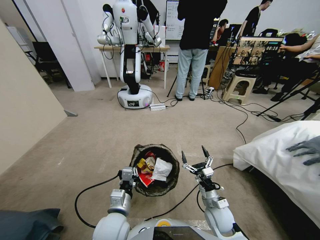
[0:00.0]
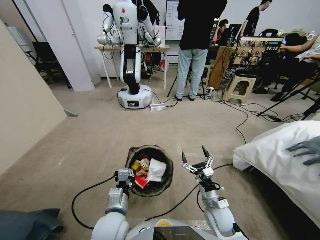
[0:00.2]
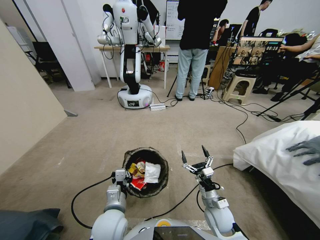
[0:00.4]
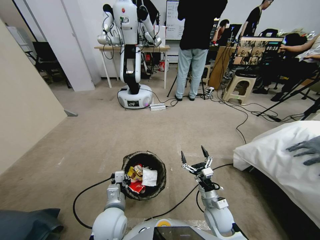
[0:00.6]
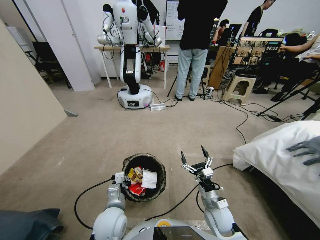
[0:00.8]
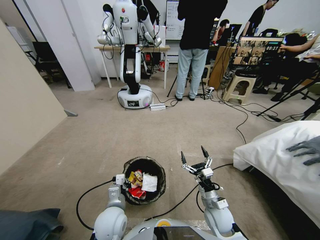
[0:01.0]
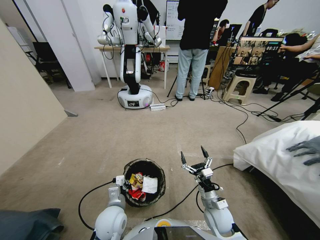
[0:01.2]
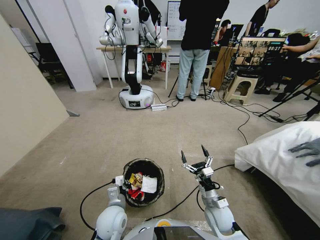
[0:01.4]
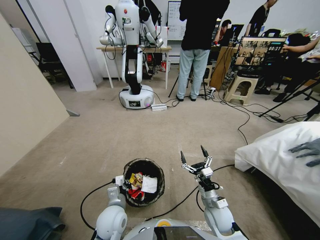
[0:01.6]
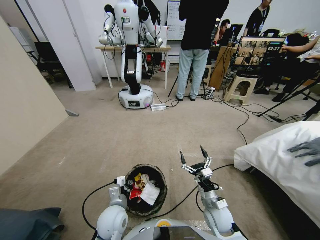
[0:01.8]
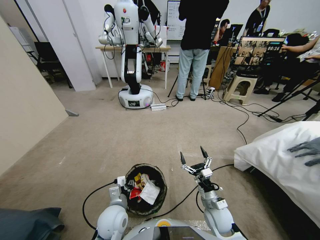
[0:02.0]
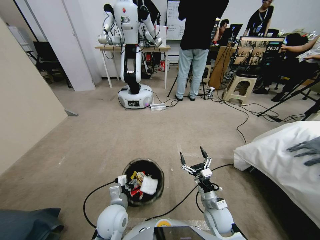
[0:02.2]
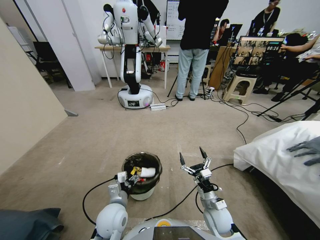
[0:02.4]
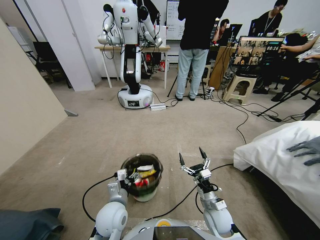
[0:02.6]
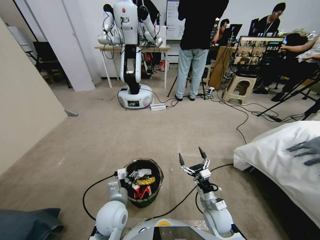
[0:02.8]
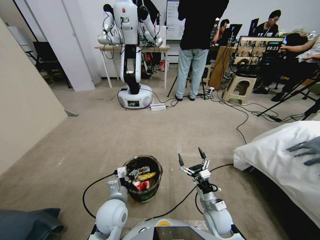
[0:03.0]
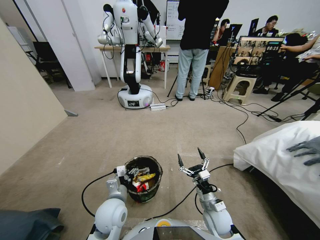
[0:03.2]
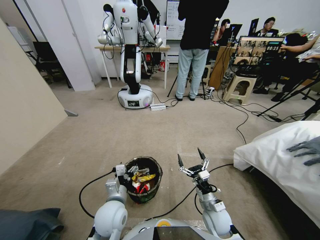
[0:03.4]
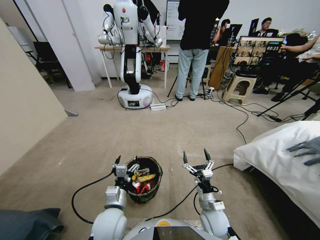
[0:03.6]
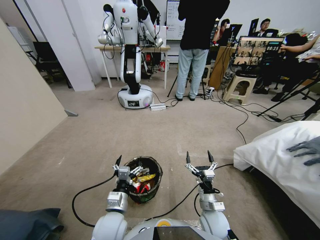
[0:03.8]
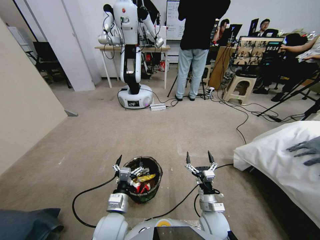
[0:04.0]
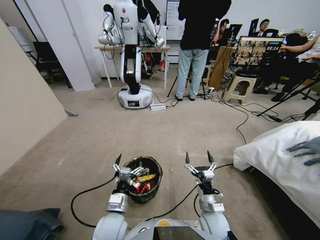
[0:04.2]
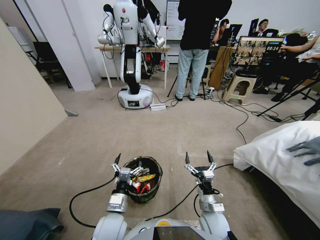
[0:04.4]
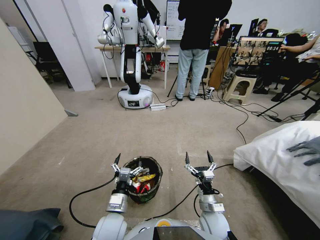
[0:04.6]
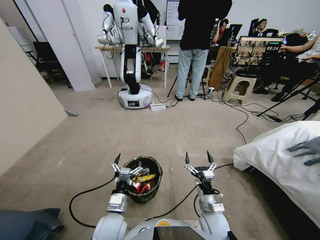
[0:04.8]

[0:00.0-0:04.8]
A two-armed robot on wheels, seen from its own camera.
Task of the whole recording: Pick up the trash bin, then pick up the garbage from the floor and place it into the trash bin.
0:00.0 to 0:01.6: The left gripper goes some 5 cm downward.
0:01.6 to 0:03.2: The left gripper opens up.

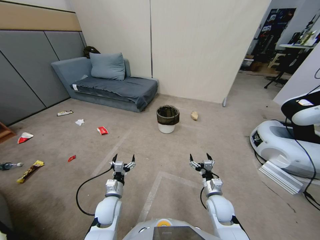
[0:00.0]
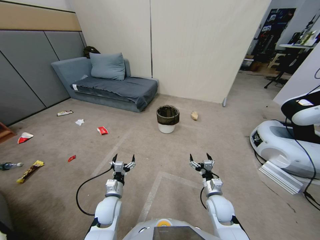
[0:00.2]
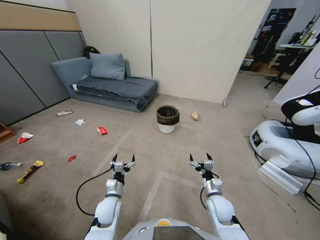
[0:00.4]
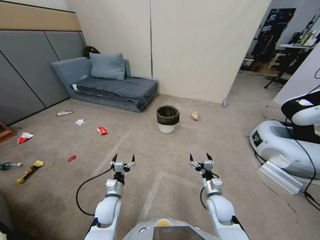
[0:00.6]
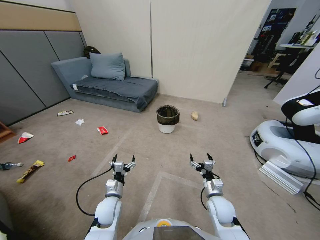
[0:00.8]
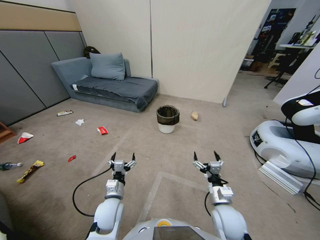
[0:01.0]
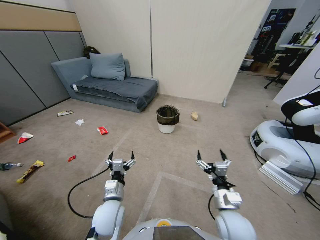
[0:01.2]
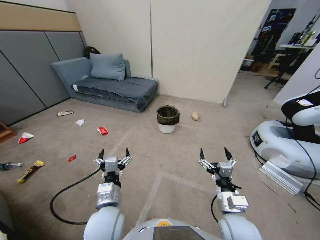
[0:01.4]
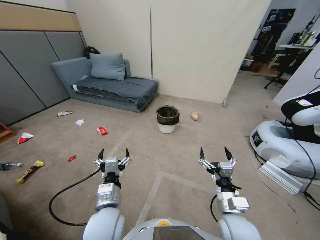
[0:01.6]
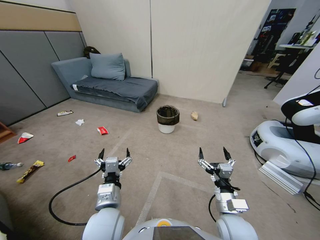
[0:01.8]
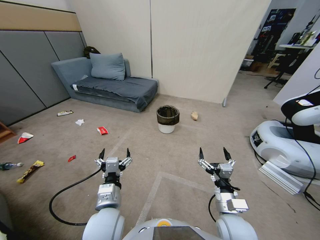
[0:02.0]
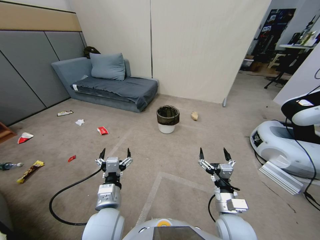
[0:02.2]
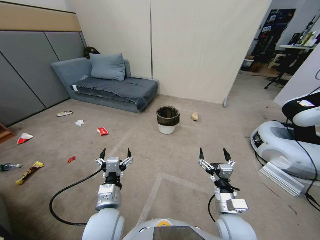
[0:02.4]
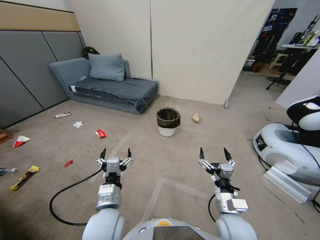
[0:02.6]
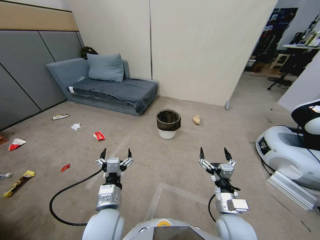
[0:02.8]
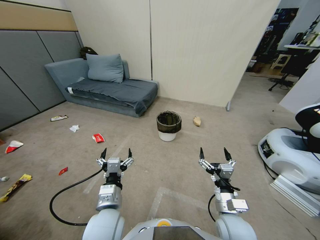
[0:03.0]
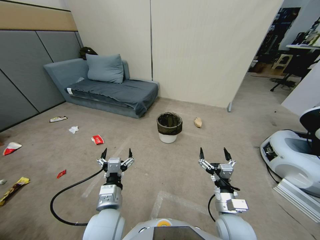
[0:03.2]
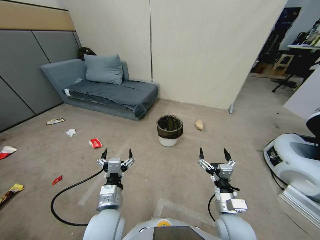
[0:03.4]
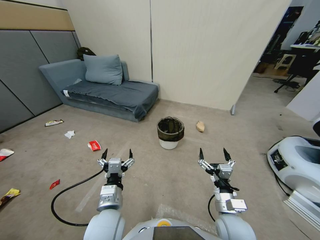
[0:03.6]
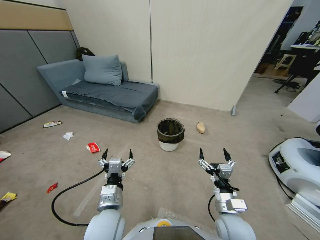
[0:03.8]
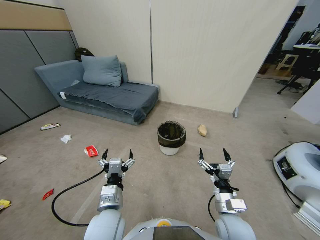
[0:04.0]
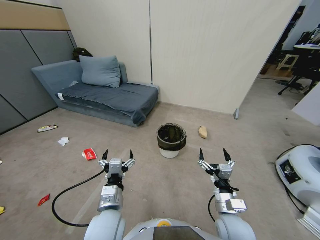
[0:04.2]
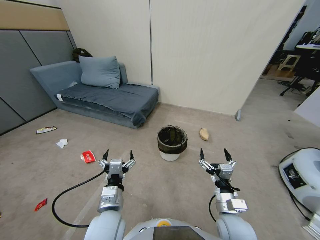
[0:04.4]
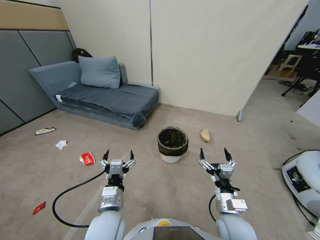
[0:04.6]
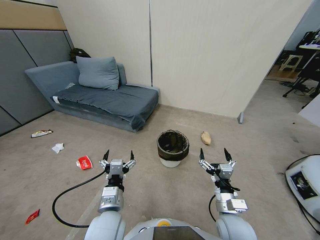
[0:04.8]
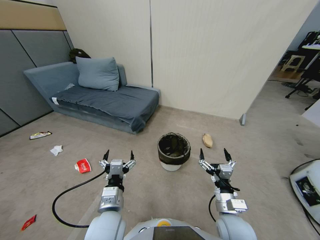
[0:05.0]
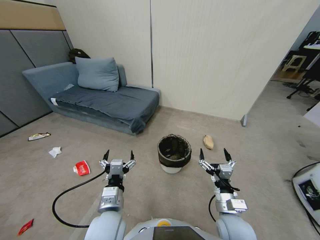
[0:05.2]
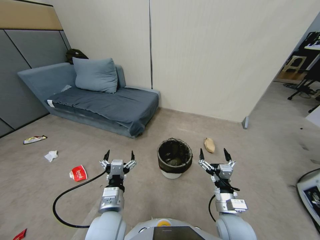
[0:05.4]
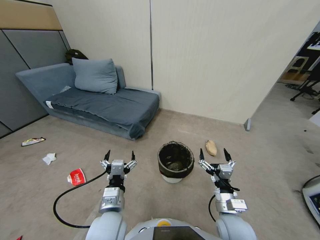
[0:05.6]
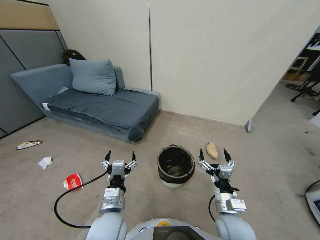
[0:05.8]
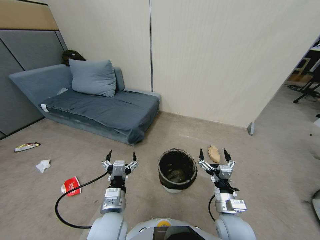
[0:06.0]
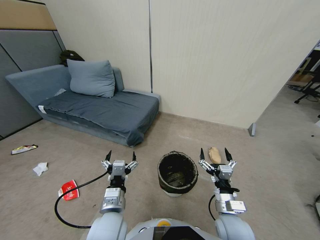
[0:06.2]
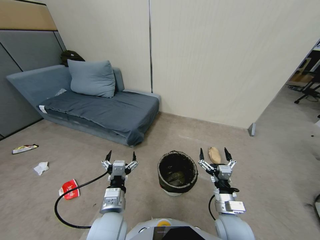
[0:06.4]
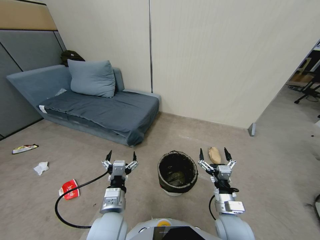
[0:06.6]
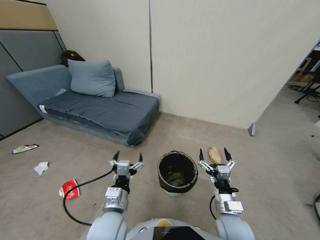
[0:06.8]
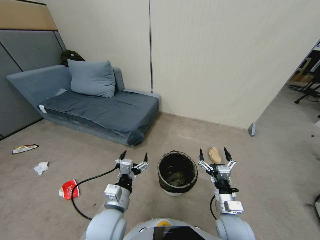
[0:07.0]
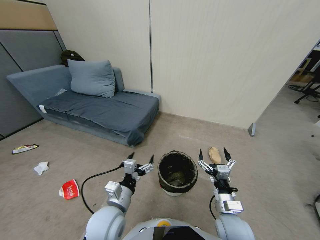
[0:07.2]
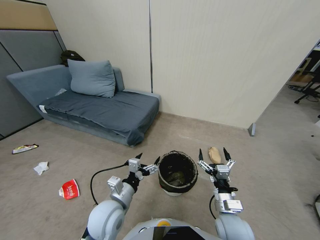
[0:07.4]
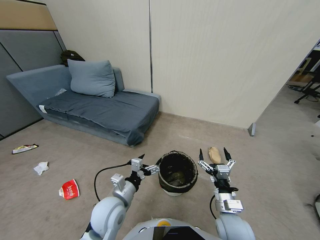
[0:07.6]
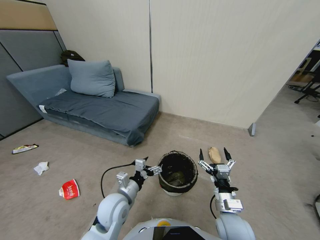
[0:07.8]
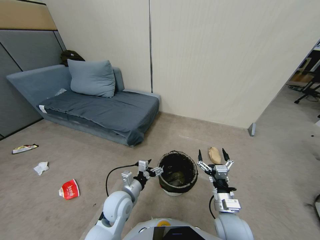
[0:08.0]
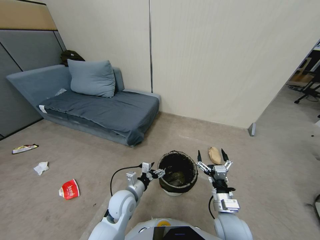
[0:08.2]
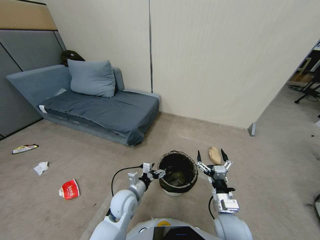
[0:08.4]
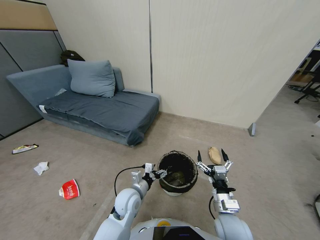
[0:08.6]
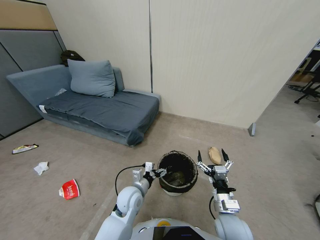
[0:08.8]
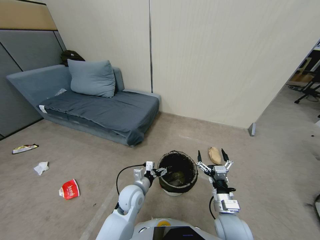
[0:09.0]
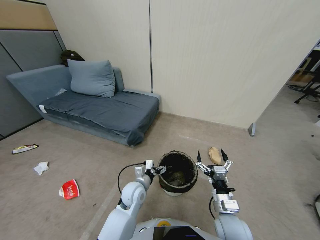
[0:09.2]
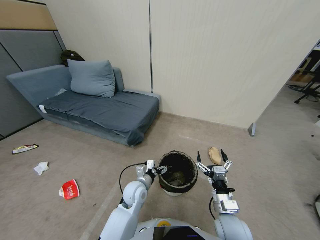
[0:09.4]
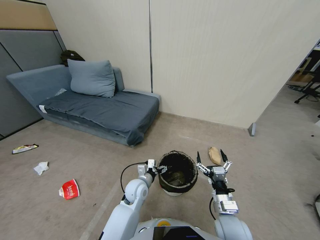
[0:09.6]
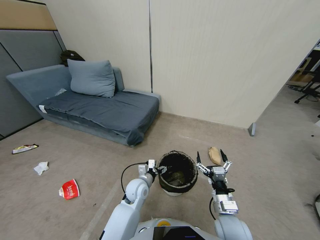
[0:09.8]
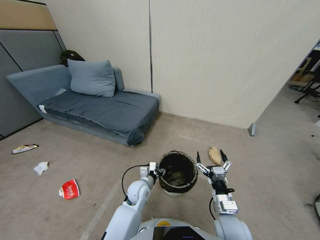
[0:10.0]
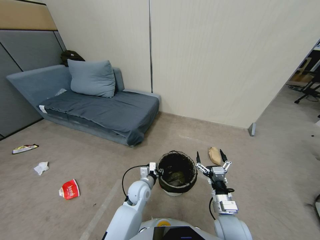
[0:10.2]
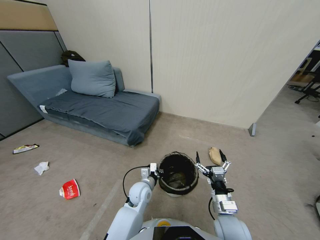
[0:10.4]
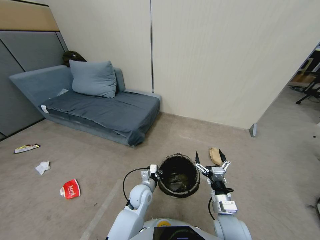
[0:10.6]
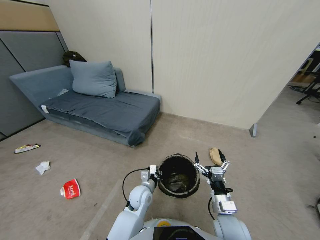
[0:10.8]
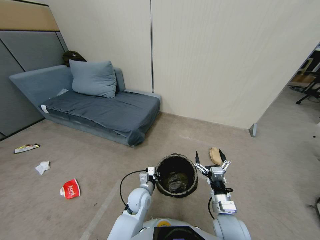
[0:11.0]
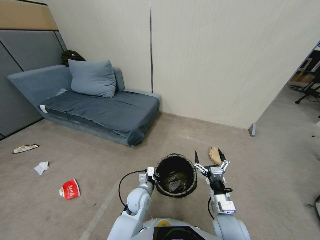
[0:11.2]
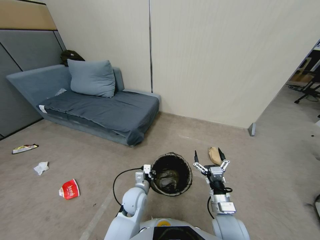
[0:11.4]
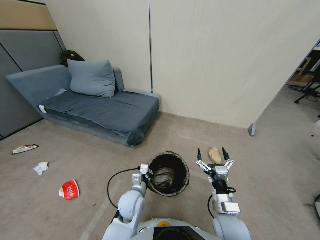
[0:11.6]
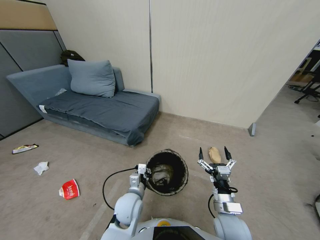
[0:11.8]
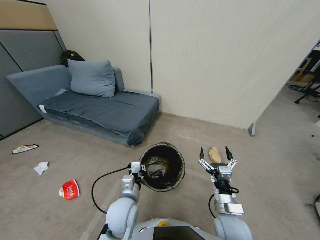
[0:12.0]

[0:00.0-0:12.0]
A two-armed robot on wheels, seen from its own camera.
Task of the whole recording: Pick up the trash bin, then pick up the garbage from the floor and place it into the trash bin.
0:06.0 to 0:07.6: The left gripper travels forward by some 5 cm.
0:07.6 to 0:09.0: The left gripper shifts about 10 cm forward, downward and to the right.
0:09.0 to 0:10.4: The left gripper changes place by approximately 5 cm, and closes.
0:10.4 to 0:12.0: The left gripper travels upward and backward by some 15 cm.

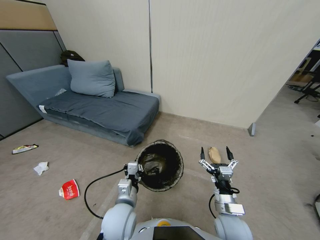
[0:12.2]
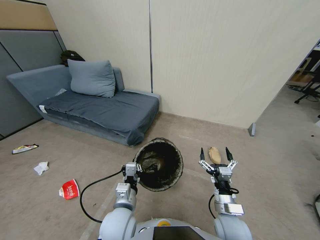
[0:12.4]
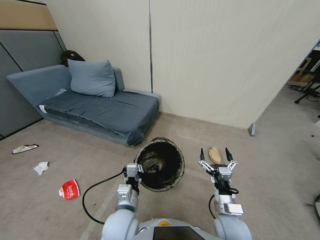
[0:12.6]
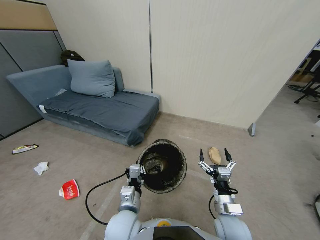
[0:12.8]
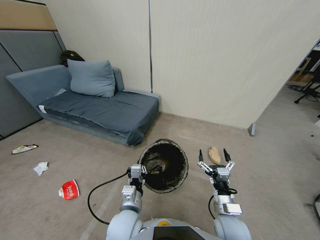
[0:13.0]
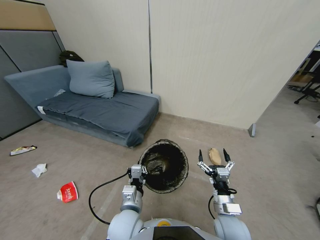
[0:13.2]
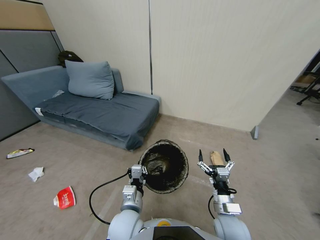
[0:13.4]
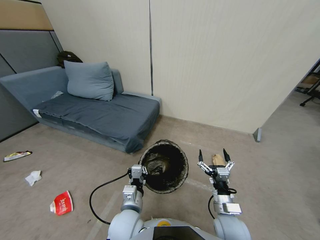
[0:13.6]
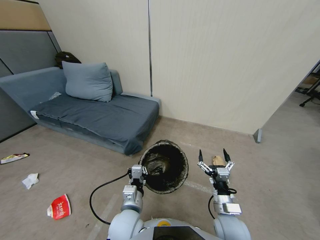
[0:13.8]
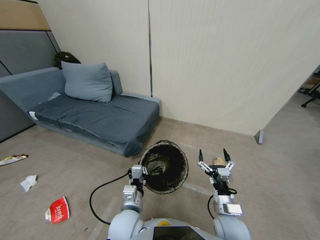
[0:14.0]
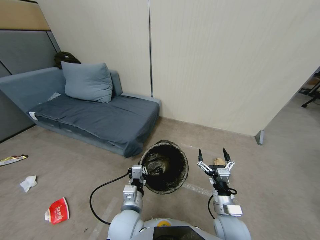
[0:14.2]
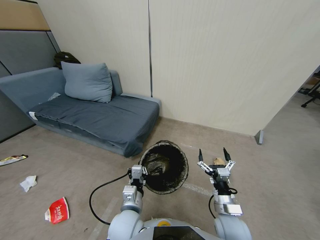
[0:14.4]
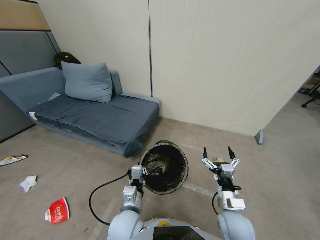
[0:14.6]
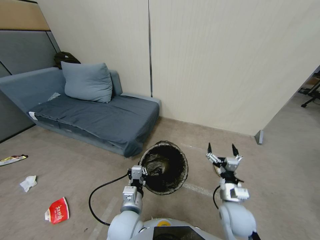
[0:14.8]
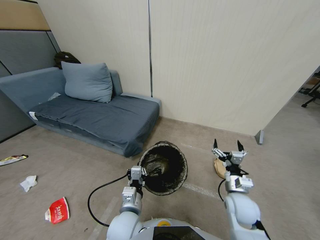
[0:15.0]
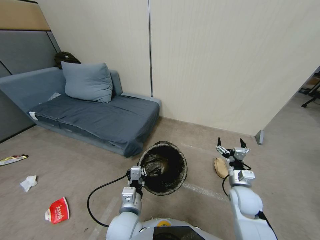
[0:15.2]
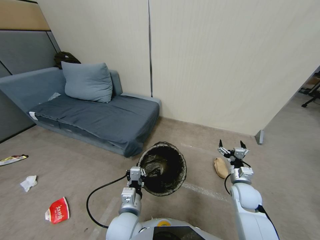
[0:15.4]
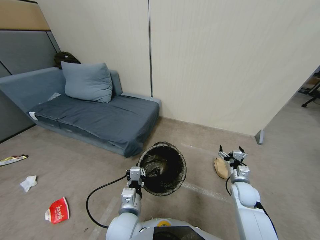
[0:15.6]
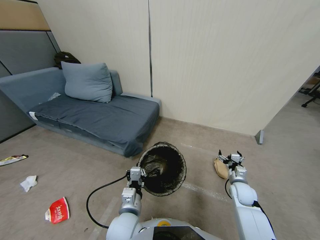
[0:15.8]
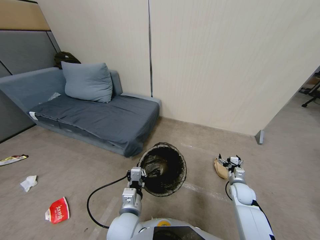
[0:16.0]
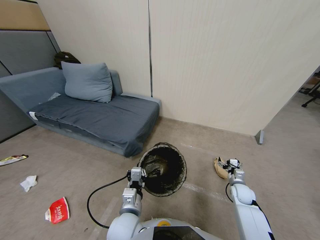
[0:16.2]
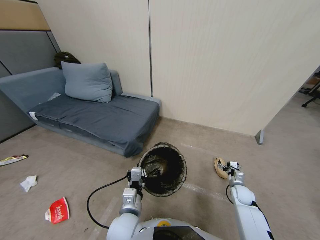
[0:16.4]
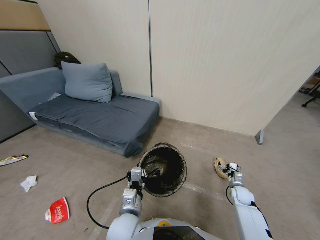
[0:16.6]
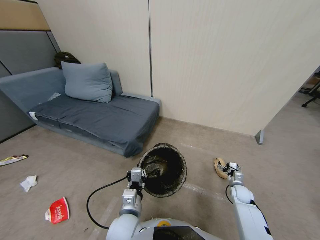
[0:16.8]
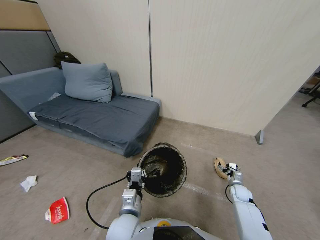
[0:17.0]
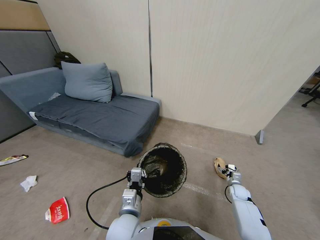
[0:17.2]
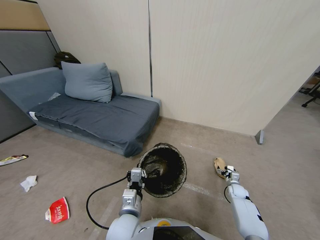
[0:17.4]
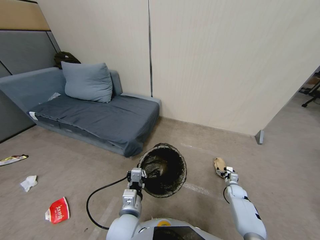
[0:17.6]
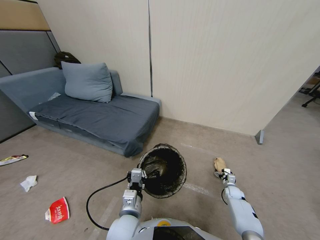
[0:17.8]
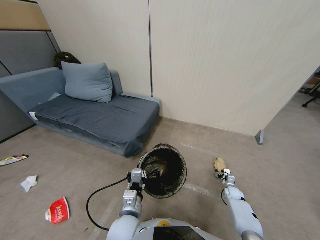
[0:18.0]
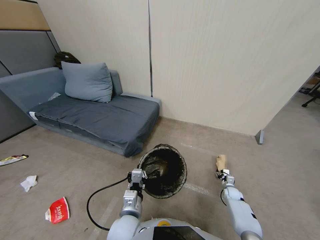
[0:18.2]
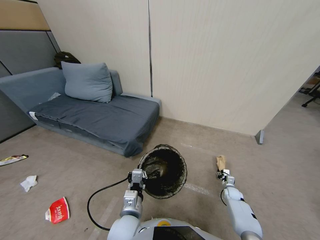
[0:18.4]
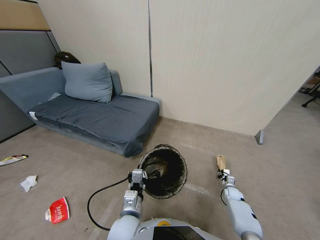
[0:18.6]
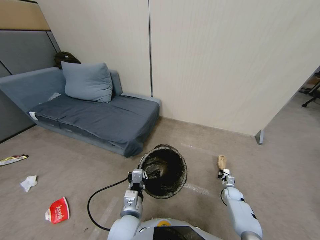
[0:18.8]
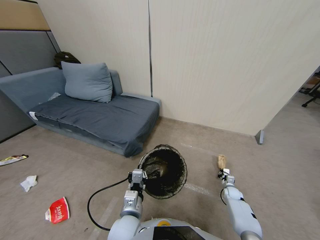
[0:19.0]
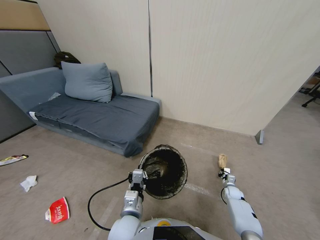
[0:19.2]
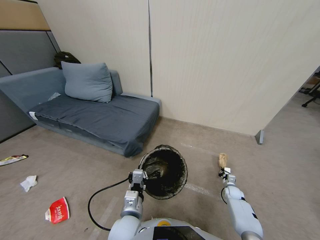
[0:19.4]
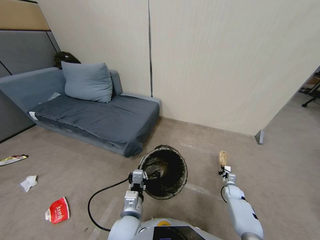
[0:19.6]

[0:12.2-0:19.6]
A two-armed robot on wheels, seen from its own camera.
Task of the whole recording: Pick up the trash bin, then pick up the garbage from the floor and place it into the trash bin.
0:12.2 to 0:13.6: There are only small adjustments of the grippers.
0:13.6 to 0:15.2: The right gripper is displaced to the right and forward by approximately 15 cm.
0:15.2 to 0:16.6: The right gripper heads downward and to the right, covering some 20 cm.
0:16.6 to 0:18.2: The right gripper is displaced downward by some 10 cm, and closes up.
0:18.2 to 0:19.6: The right gripper closes.
